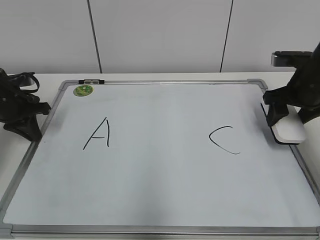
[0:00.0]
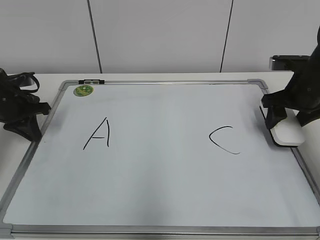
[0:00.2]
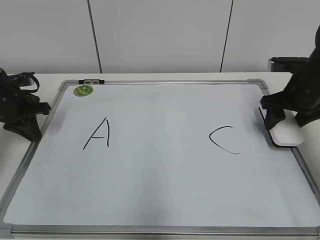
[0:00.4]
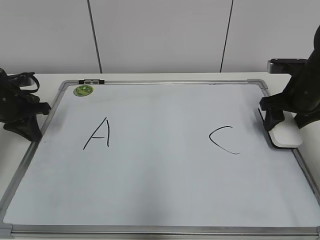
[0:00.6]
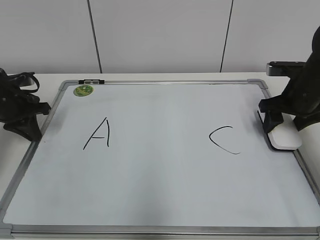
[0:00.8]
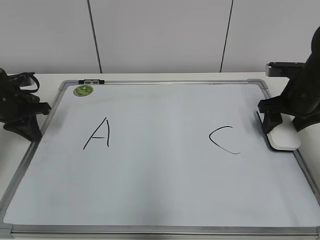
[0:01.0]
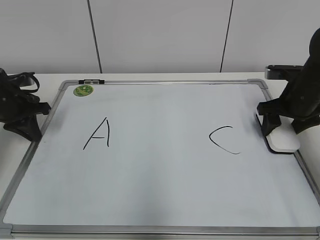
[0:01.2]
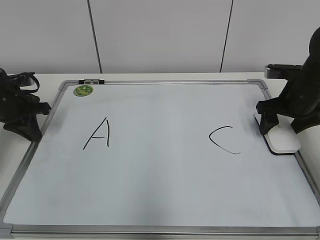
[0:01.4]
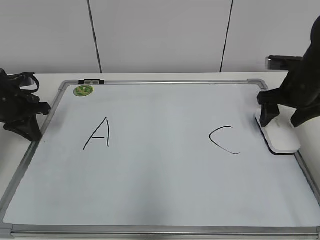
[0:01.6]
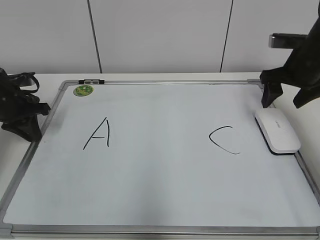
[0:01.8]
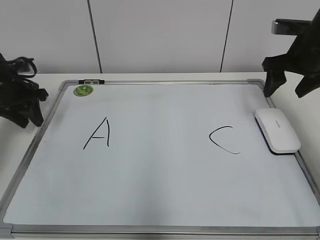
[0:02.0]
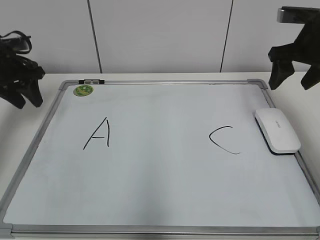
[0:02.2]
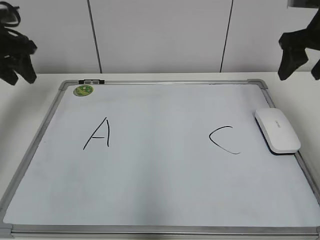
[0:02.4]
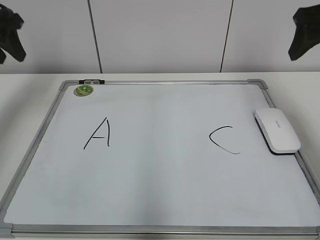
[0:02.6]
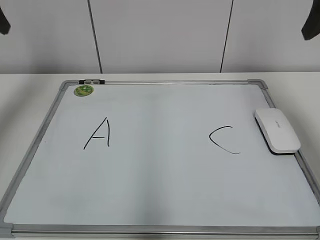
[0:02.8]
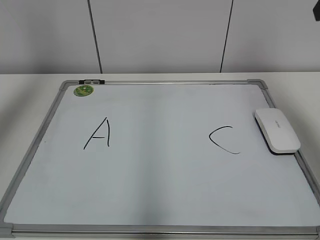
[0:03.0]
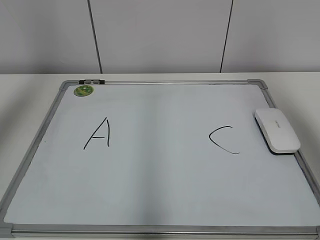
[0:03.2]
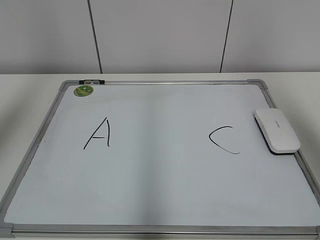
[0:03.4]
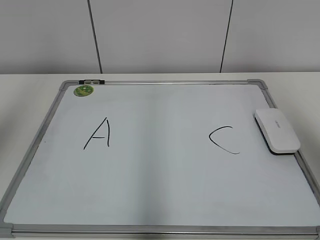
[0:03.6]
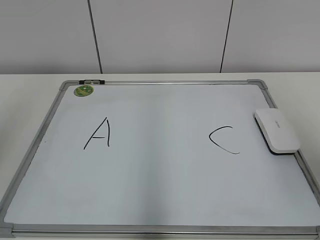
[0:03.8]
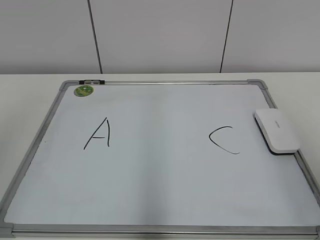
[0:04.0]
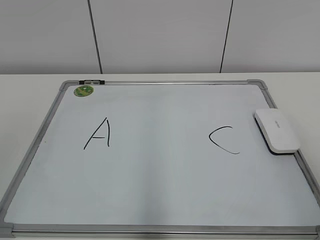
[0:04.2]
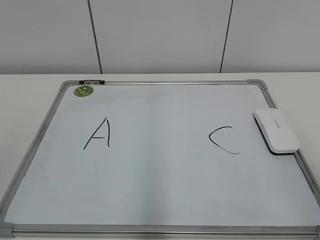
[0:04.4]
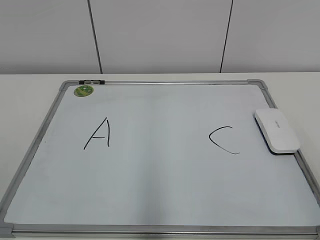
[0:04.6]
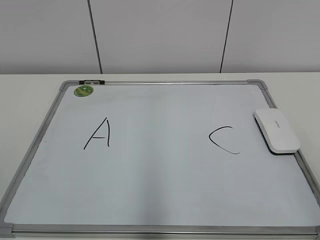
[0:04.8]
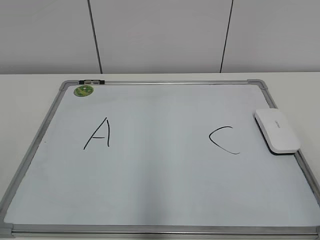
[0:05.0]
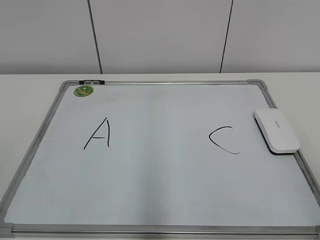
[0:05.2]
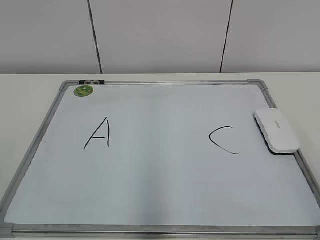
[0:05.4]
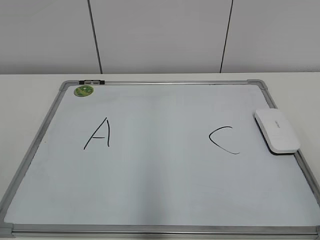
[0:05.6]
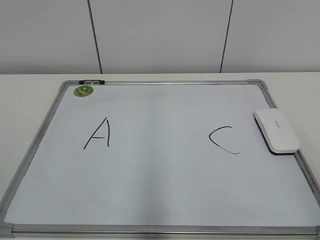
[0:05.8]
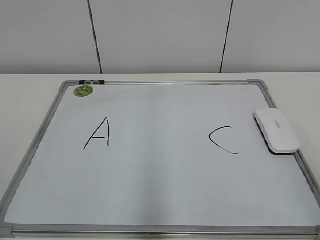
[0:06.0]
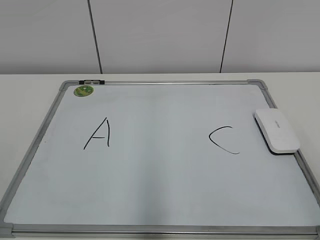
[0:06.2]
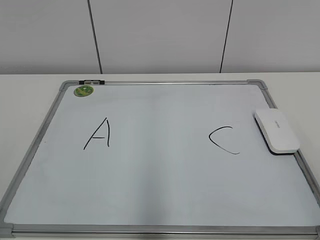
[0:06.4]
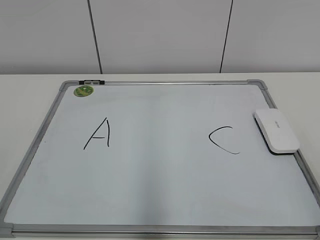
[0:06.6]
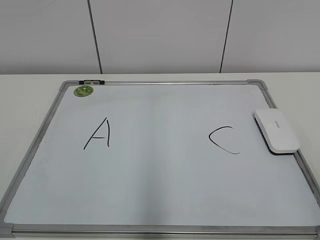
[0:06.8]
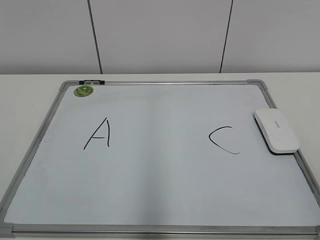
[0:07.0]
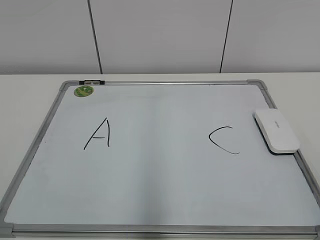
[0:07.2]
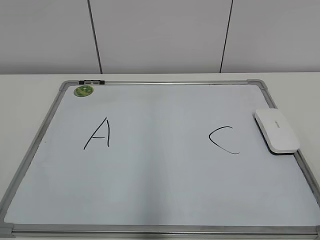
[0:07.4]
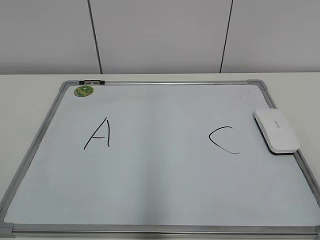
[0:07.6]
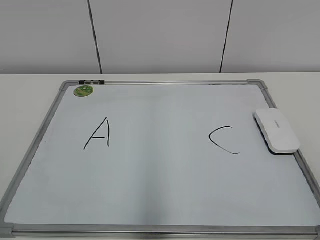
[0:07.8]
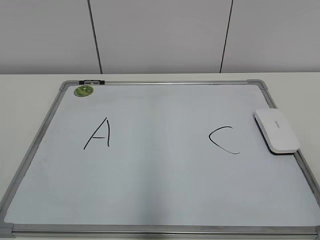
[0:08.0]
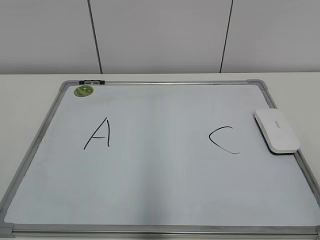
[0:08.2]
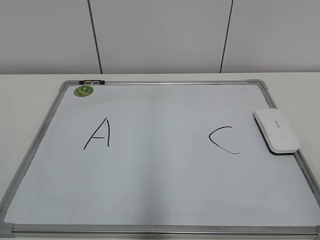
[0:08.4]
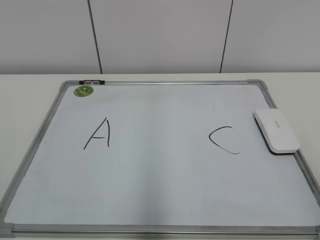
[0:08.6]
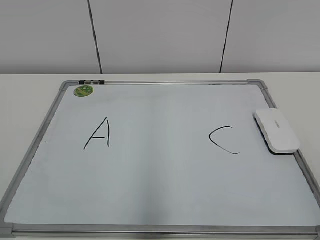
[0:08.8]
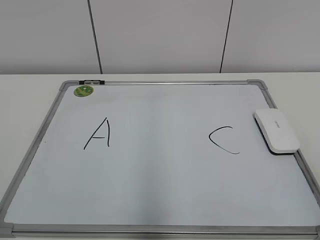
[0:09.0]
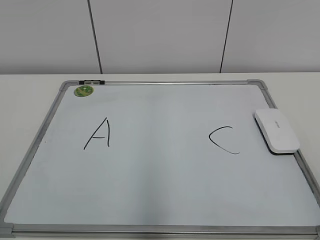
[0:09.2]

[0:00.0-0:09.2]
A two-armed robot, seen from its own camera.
Task of the whole recording: pick up the eraser on the blackboard and erase the letter "B".
0:00.0 to 0:01.6: The right gripper opens.
0:01.6 to 0:03.0: The left gripper heads upward, covering roughly 30 cm, and opens up; the right gripper goes approximately 25 cm upward and backward.
0:03.0 to 0:04.6: The grippers both shift backward and downward by some 30 cm.
0:07.6 to 0:09.2: Neither gripper changes place.
